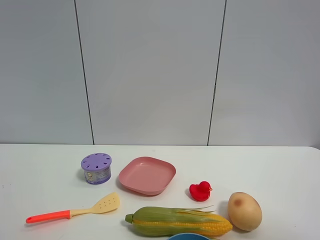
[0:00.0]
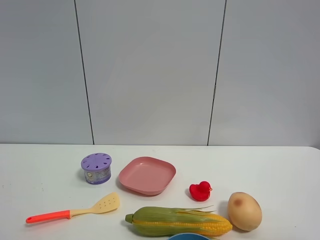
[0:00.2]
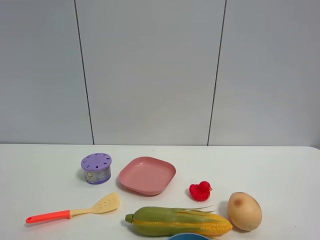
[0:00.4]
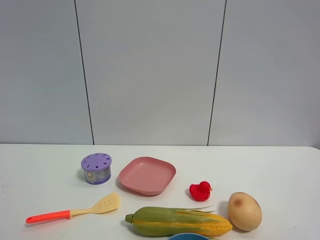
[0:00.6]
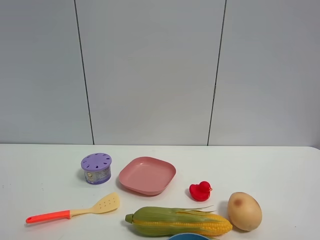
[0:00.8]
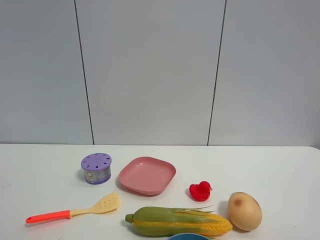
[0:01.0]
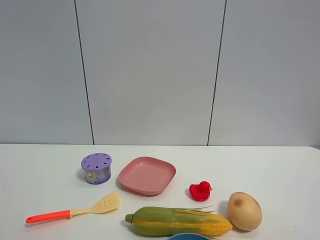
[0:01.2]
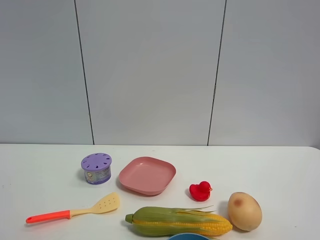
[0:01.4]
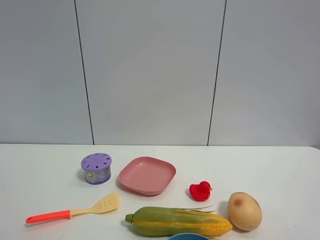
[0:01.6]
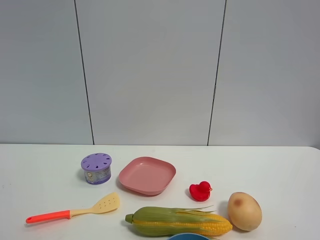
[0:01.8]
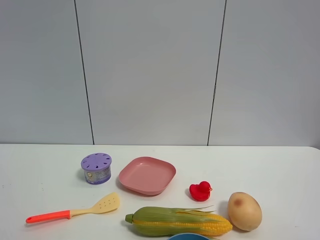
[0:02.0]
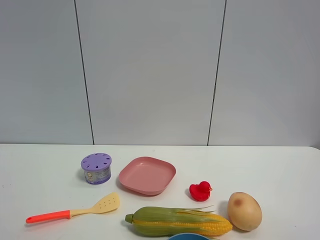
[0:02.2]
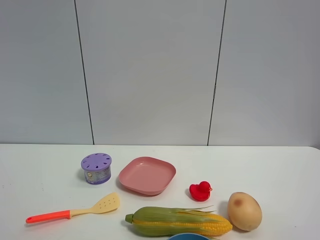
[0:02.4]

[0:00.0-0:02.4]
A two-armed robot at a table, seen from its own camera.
Task of the whole recording: the gripper move the object.
0:01.2 to 0:02.4: The two grippers keep their place.
